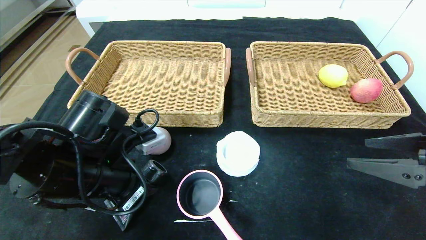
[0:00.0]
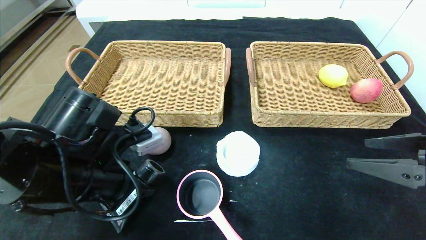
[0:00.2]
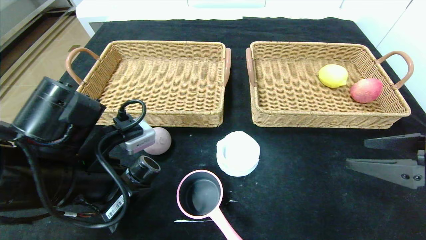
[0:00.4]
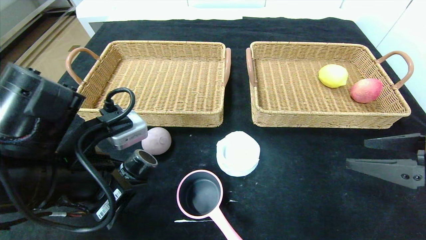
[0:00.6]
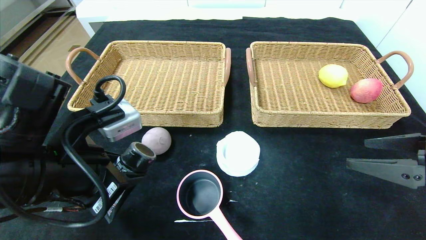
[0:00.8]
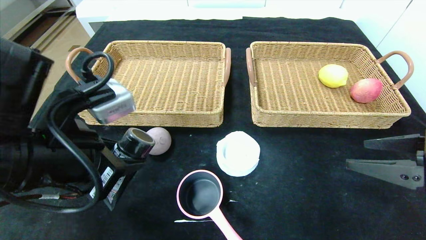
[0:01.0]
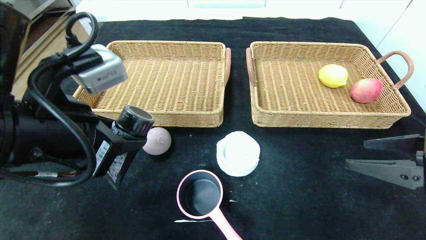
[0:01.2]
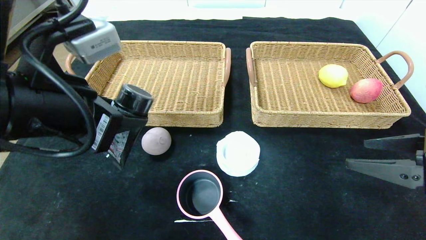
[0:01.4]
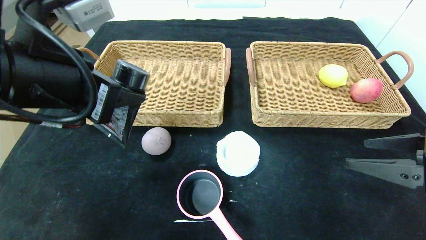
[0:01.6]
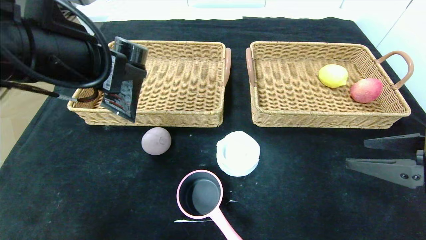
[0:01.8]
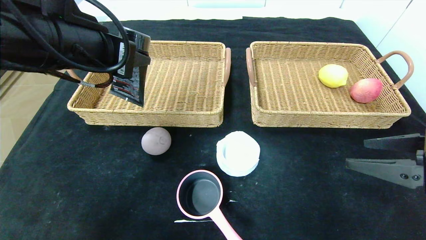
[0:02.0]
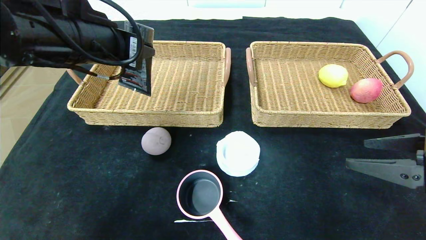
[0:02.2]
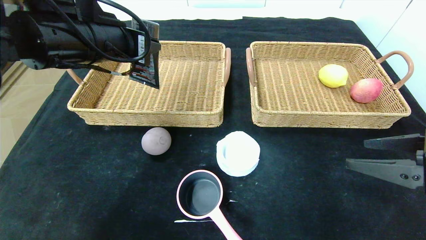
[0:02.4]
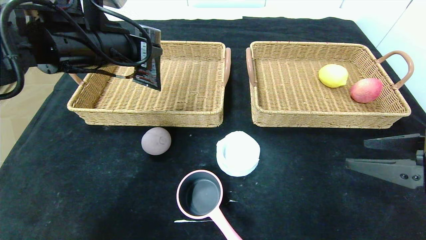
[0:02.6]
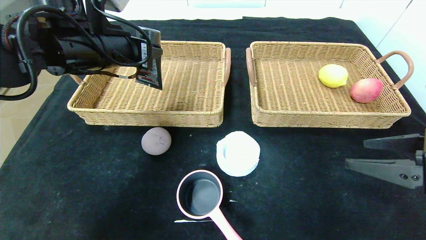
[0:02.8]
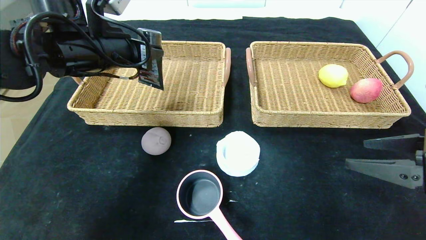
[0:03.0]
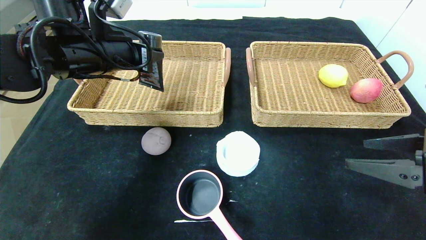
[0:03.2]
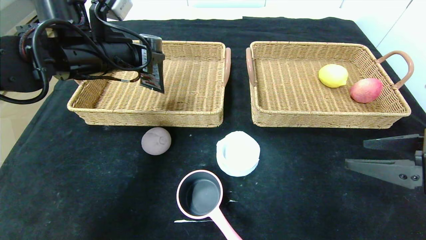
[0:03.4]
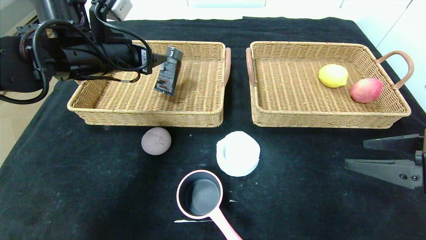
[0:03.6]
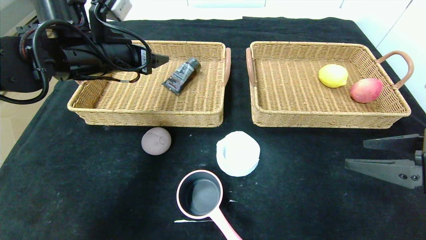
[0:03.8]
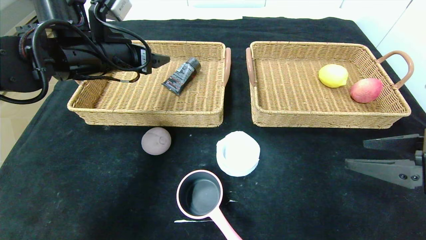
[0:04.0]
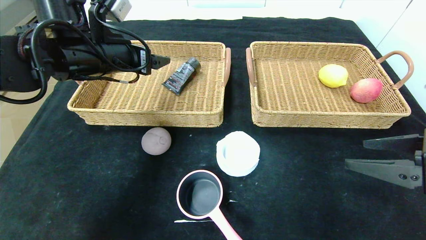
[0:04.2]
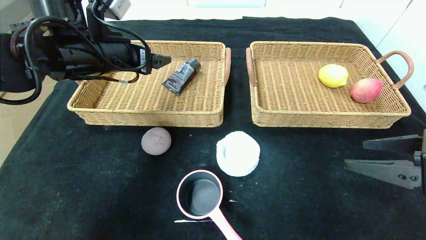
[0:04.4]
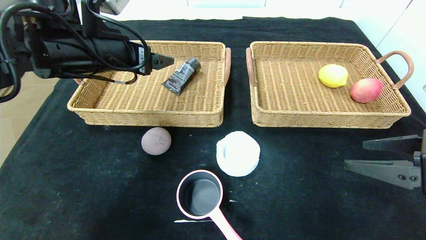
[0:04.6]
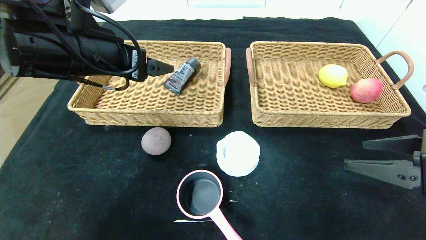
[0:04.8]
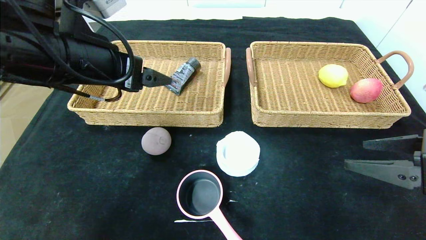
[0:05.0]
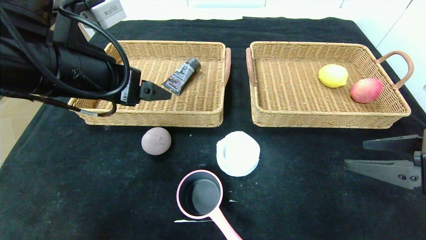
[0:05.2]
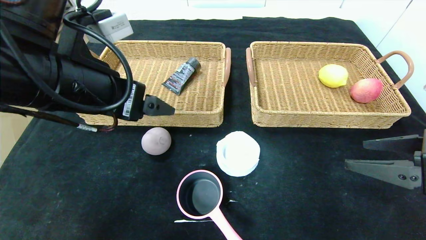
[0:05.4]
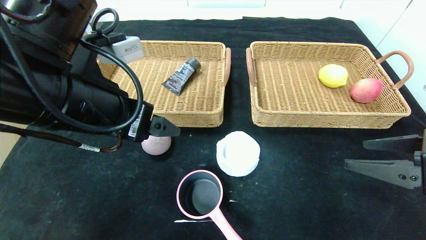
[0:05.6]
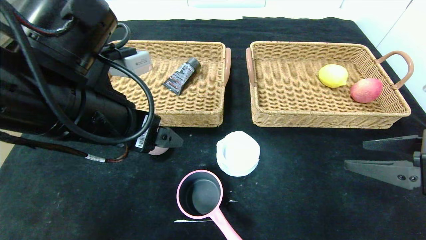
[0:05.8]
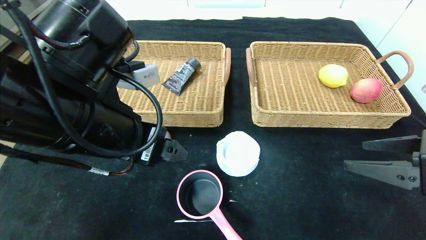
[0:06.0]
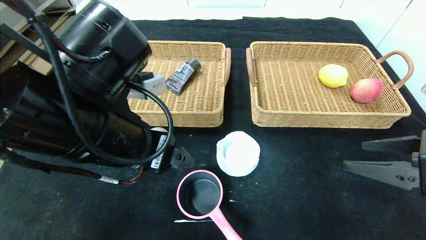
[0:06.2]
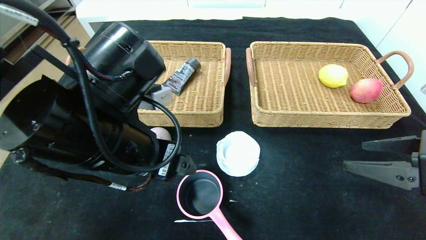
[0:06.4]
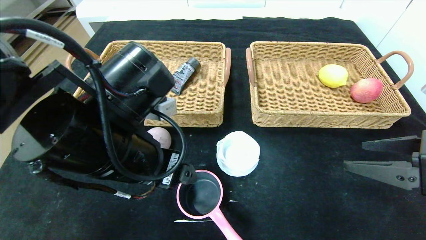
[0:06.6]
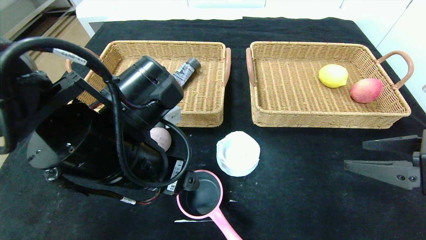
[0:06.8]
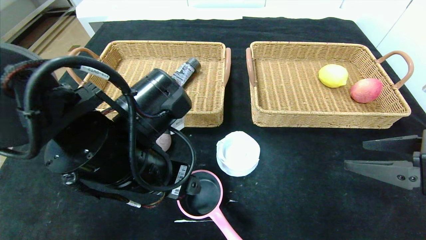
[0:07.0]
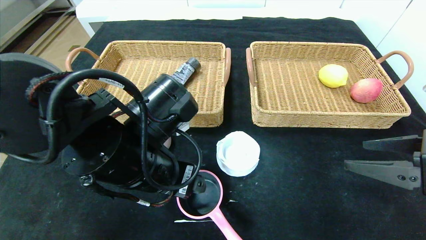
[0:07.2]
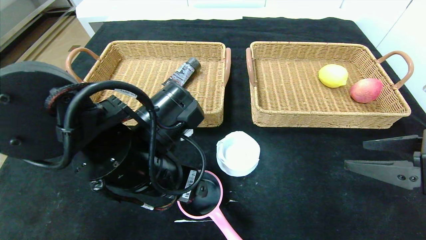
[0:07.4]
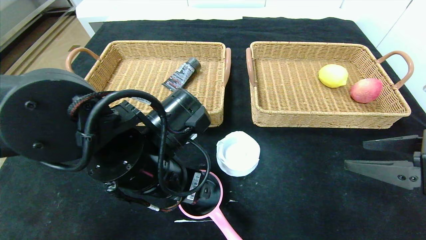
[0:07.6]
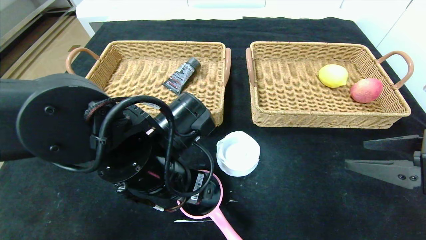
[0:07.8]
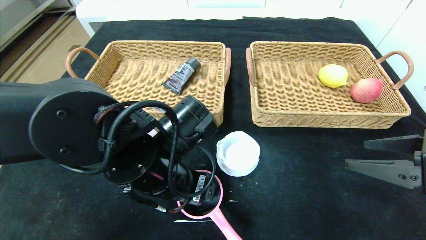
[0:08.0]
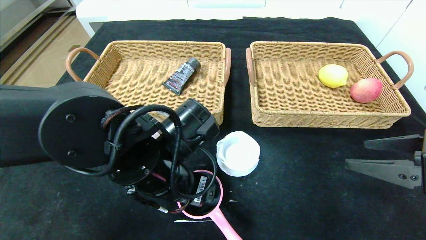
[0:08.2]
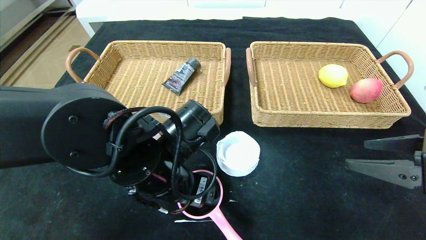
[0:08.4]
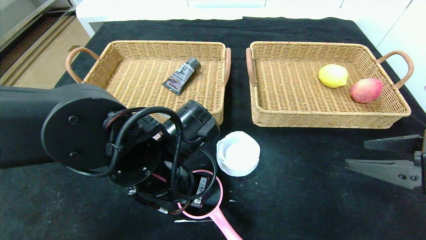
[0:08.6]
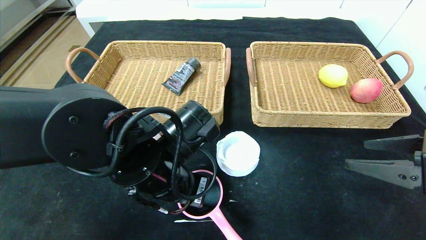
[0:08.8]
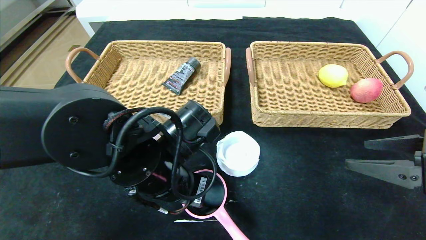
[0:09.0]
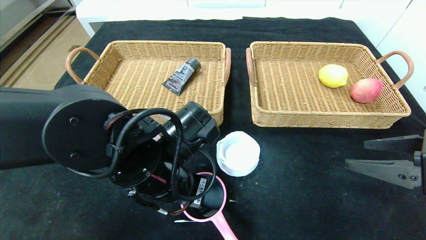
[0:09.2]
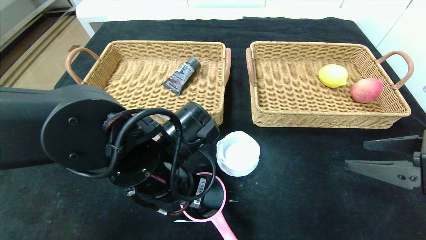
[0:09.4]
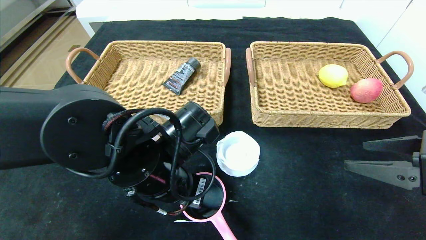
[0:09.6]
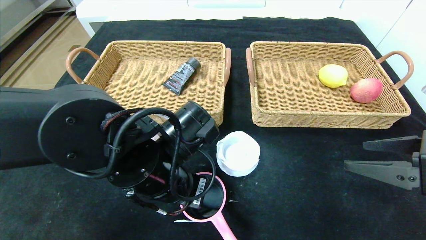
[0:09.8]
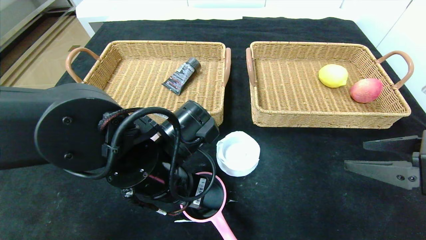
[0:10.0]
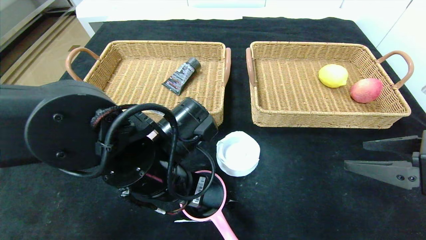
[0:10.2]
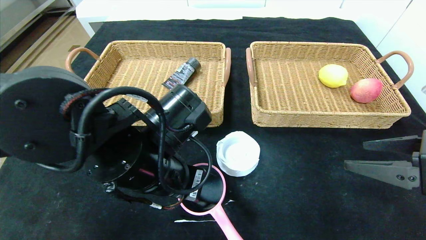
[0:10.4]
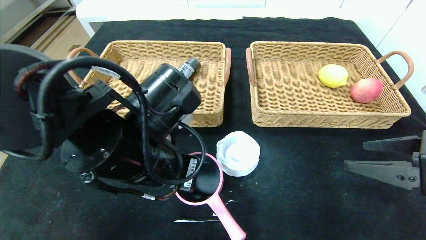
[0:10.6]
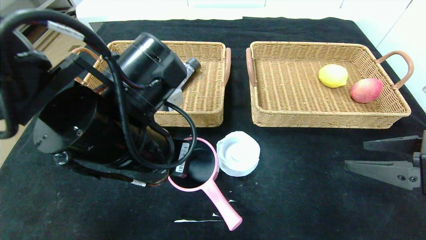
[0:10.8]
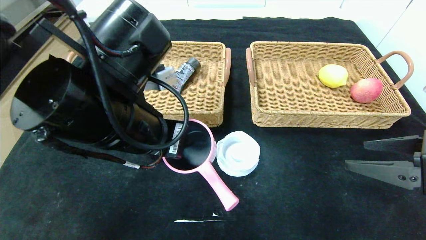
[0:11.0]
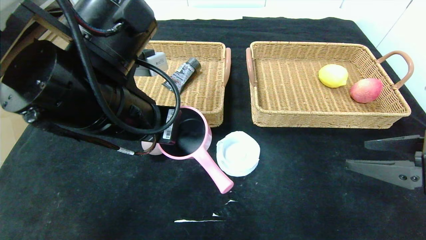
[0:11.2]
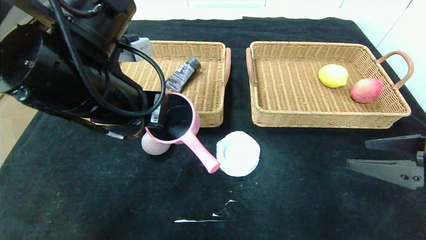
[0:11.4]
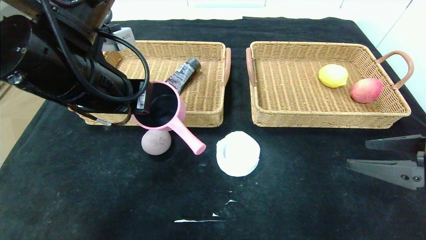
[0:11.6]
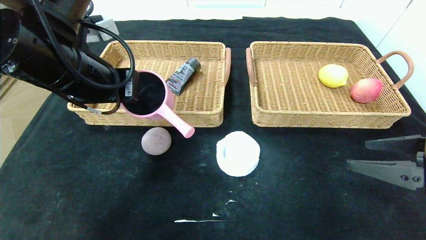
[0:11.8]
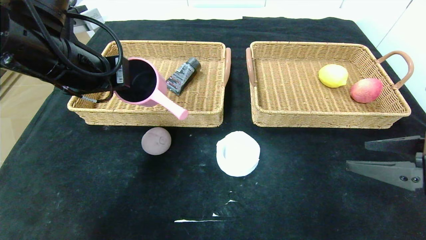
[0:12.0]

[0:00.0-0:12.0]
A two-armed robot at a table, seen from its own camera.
Step, 0:00.0 to 0:05.8: Pick up the soft cleanser and put it in the left basket.
0:00.0 to 0:01.6: The left gripper is displaced upward by about 15 cm.
0:01.6 to 0:03.0: The left gripper is displaced forward by approximately 15 cm.
0:03.0 to 0:04.4: The left gripper opens its fingers.
0:04.4 to 0:06.0: The left gripper moves backward and to the right, roughly 15 cm.
0:06.0 to 0:07.6: The left gripper heads downward, covering some 10 cm.
0:07.6 to 0:09.0: The left gripper closes its fingers.
0:09.0 to 0:10.4: The grippers make only small movements.
0:10.4 to 0:12.0: The left gripper goes about 20 cm upward, to the left and forward.

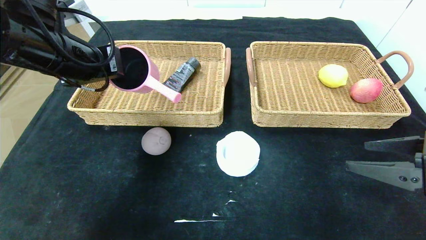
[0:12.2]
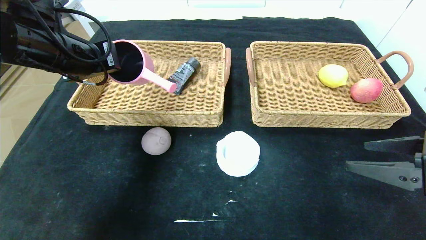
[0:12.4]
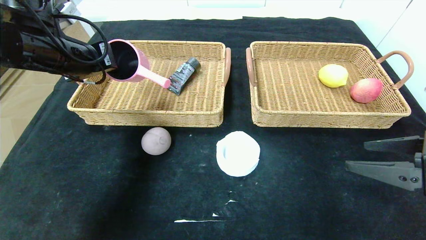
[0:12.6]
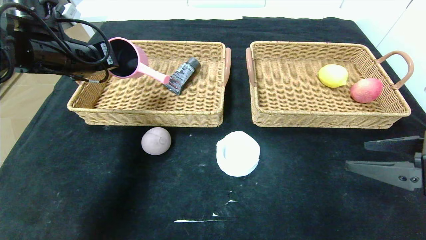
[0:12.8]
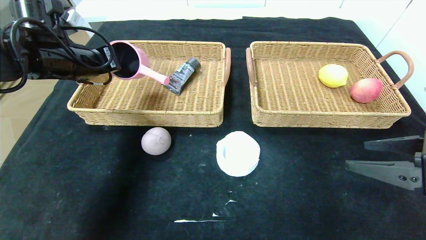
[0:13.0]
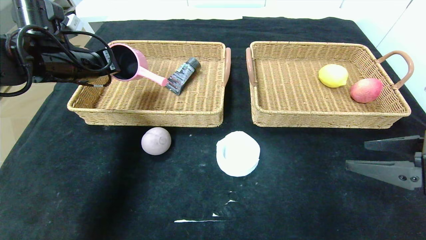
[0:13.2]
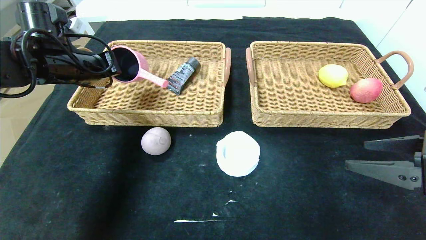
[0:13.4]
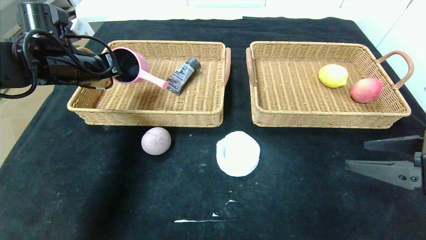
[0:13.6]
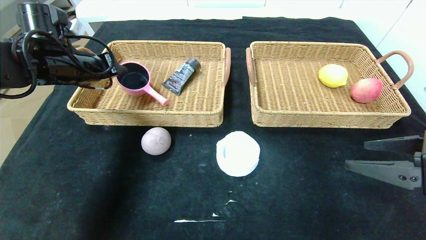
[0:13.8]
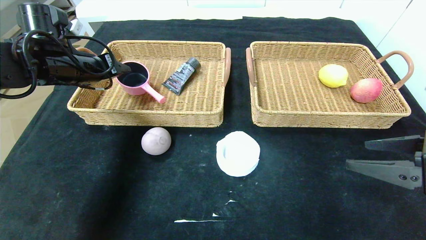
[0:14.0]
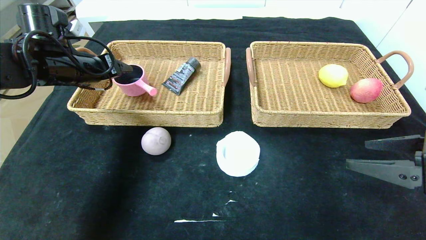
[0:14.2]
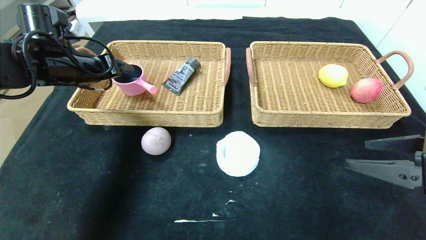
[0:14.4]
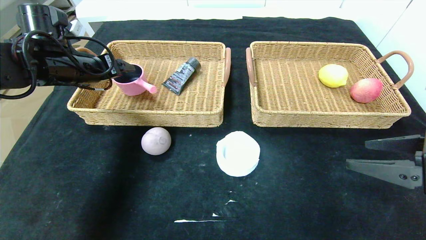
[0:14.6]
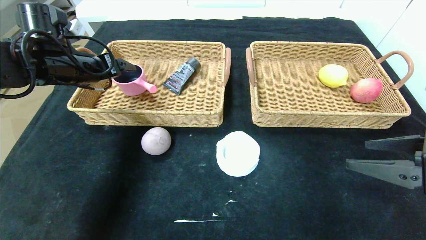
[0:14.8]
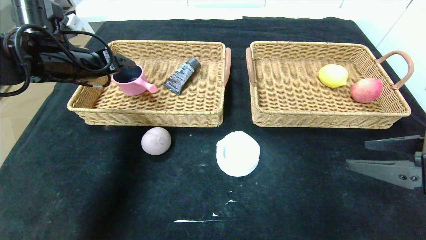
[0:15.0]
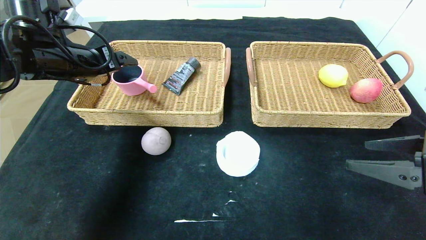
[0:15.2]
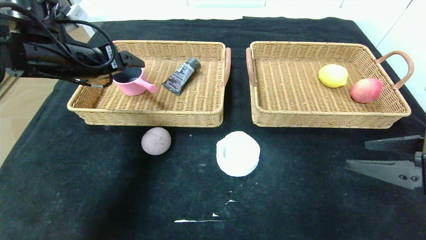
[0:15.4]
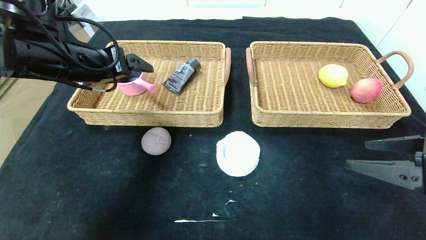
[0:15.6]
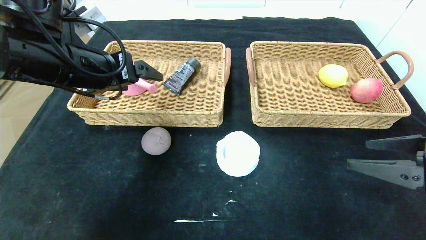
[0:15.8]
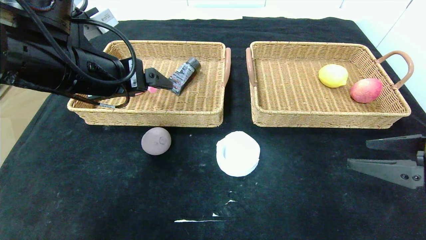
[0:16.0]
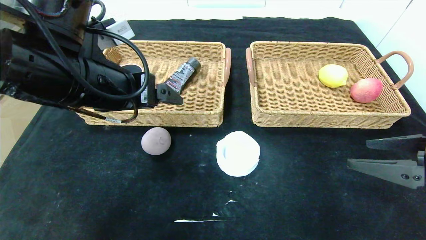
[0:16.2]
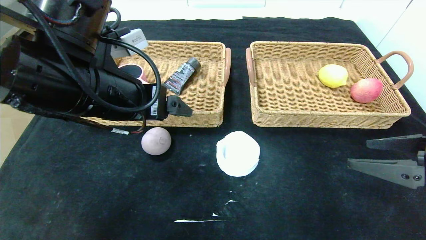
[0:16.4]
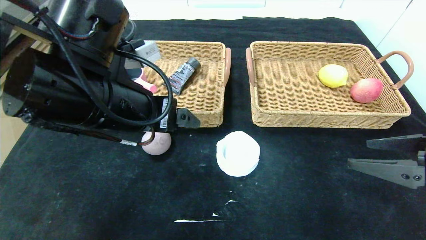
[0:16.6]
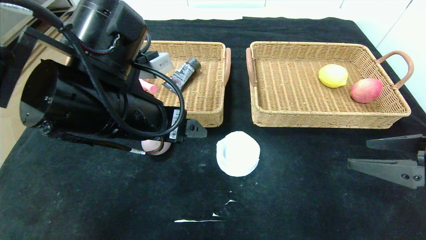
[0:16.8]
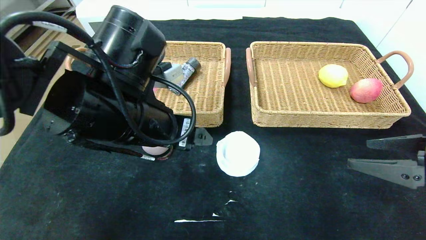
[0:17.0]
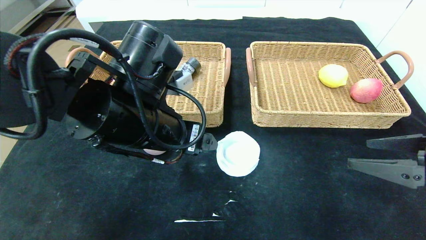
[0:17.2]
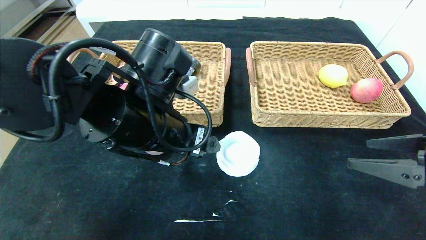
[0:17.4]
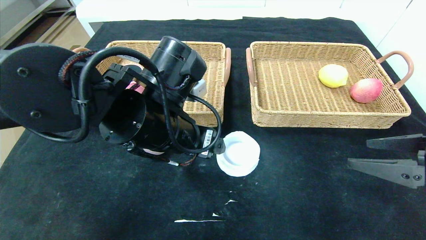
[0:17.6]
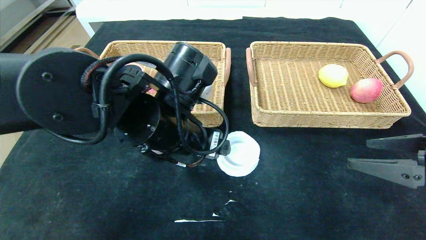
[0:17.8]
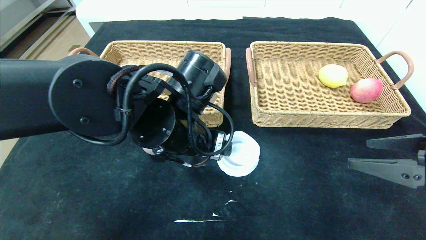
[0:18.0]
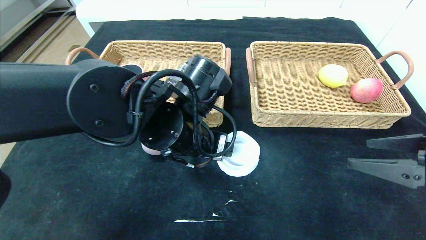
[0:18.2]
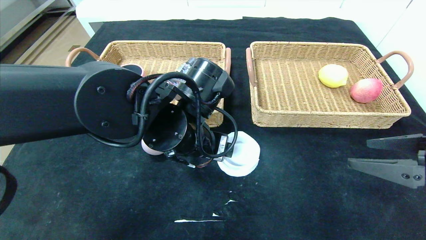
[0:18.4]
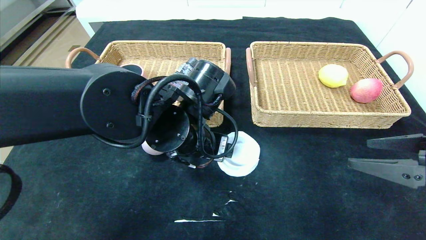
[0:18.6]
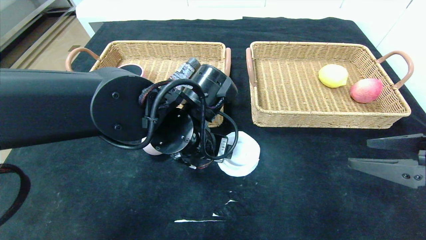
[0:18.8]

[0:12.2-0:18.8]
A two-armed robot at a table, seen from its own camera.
Step, 0:12.2 to 0:17.0: Pick up the pink pot and put it in the left basket.
0:12.2 to 0:13.8: The left gripper heads forward and to the left, covering about 10 cm.
0:13.8 to 0:15.4: The left gripper changes place by roughly 5 cm, and opens.
0:15.4 to 0:17.2: The left gripper goes about 20 cm to the right and backward.
0:17.2 to 0:18.8: The left gripper travels to the right by roughly 5 cm.
